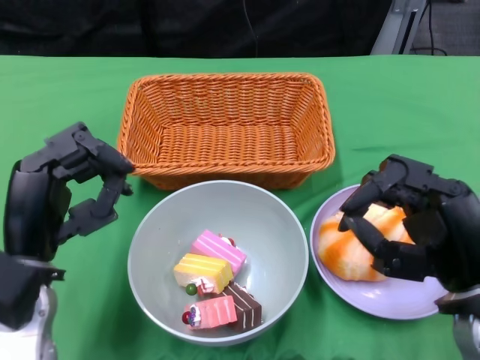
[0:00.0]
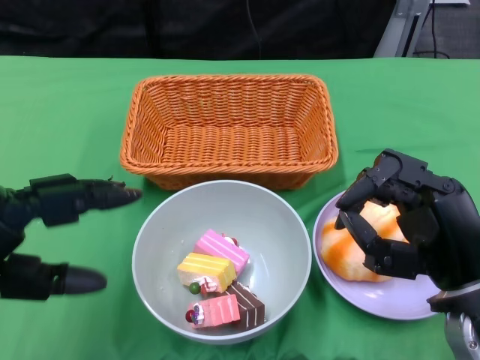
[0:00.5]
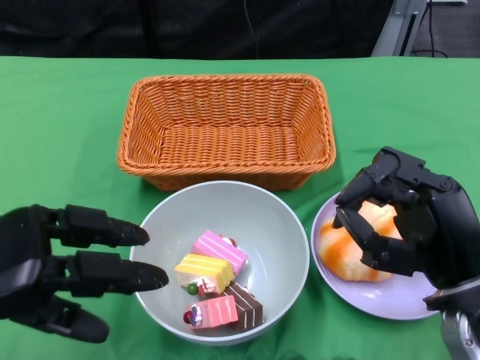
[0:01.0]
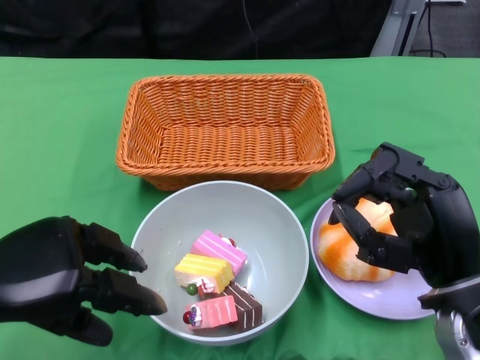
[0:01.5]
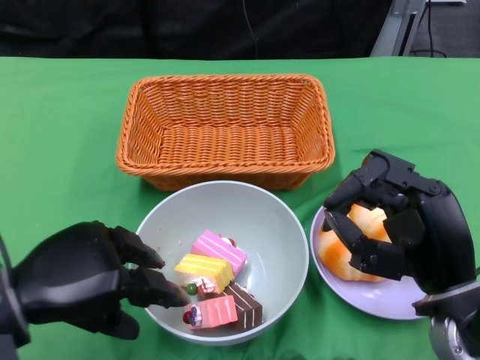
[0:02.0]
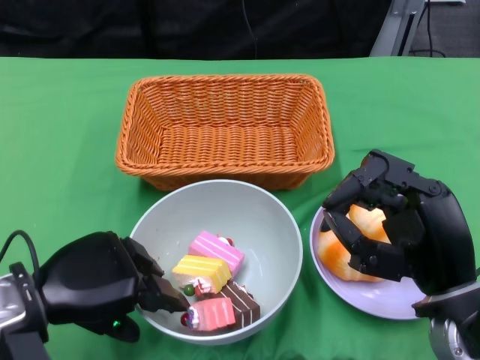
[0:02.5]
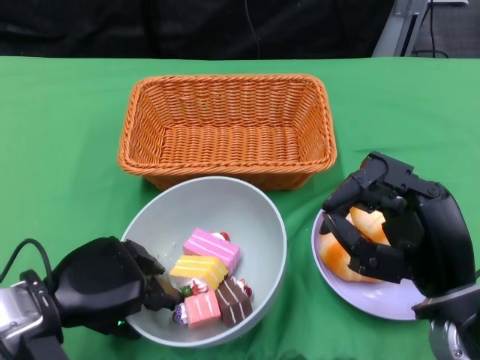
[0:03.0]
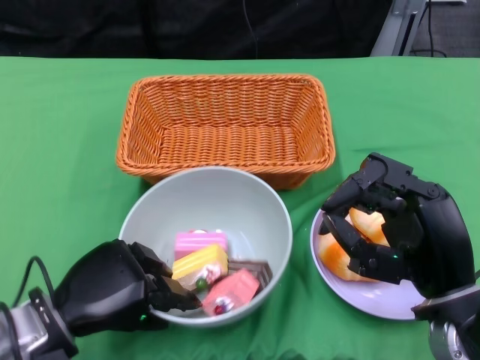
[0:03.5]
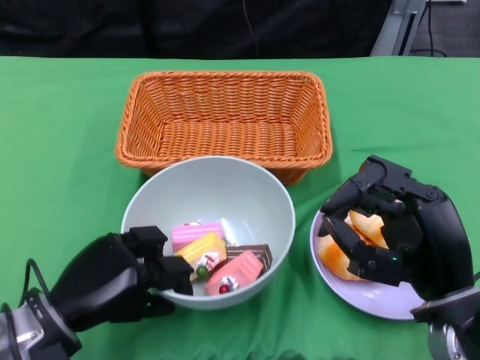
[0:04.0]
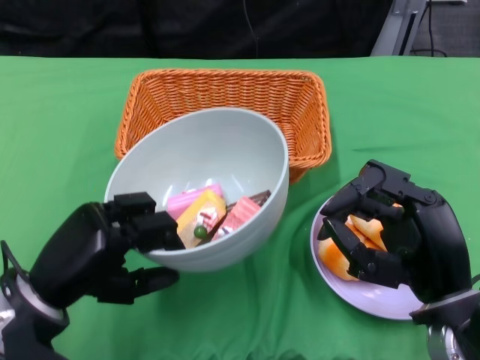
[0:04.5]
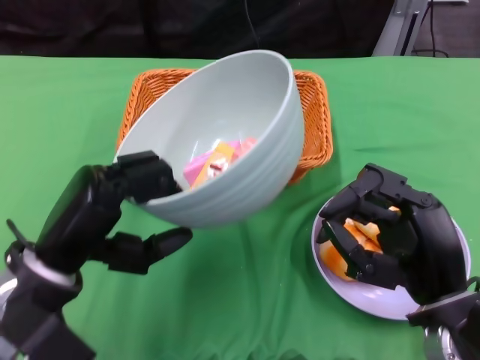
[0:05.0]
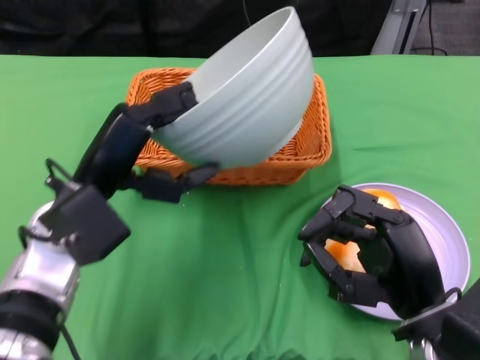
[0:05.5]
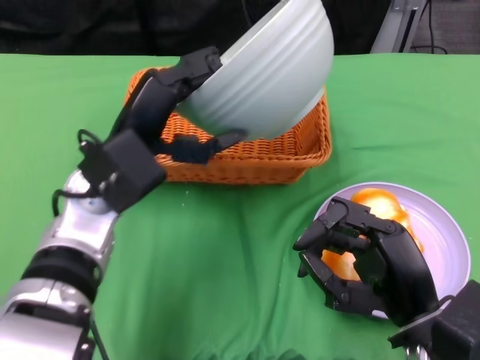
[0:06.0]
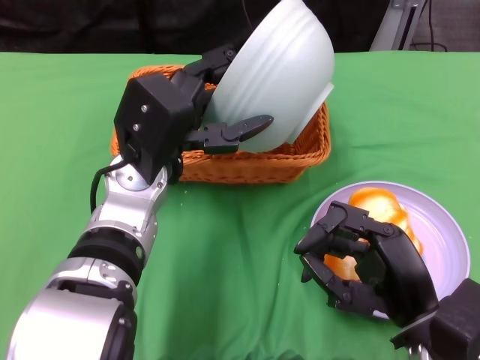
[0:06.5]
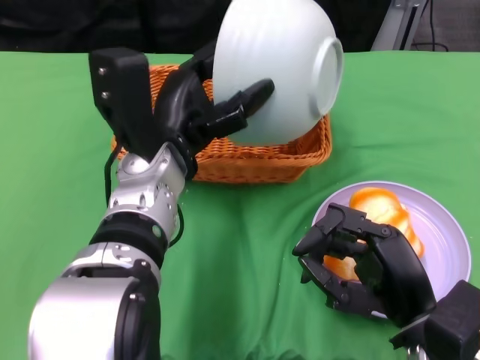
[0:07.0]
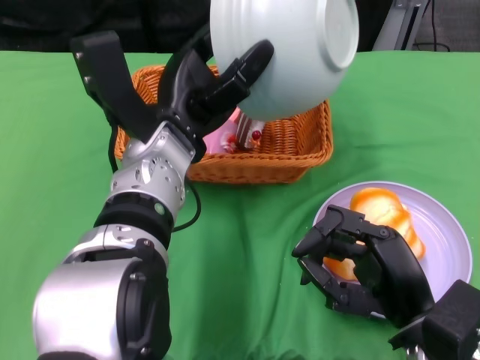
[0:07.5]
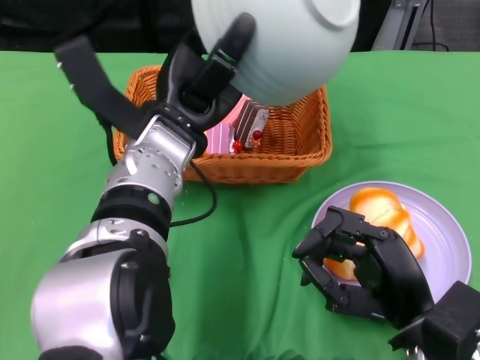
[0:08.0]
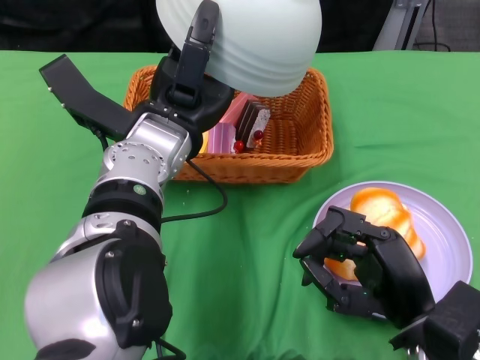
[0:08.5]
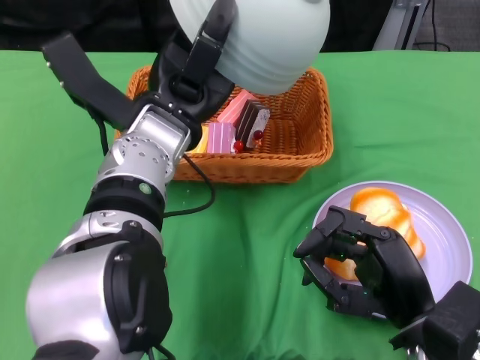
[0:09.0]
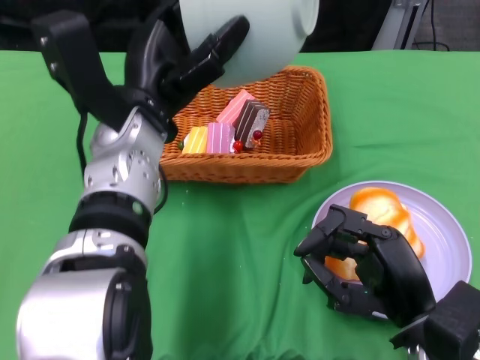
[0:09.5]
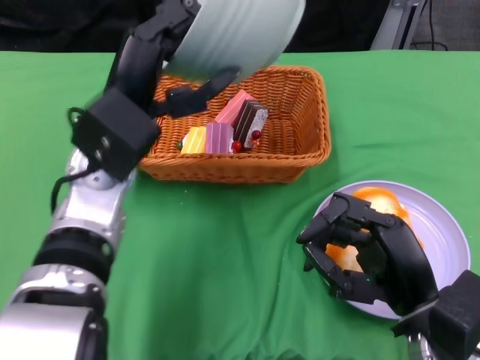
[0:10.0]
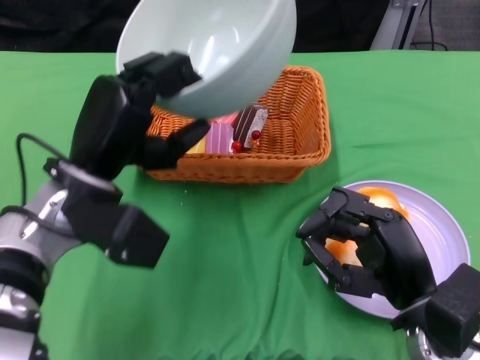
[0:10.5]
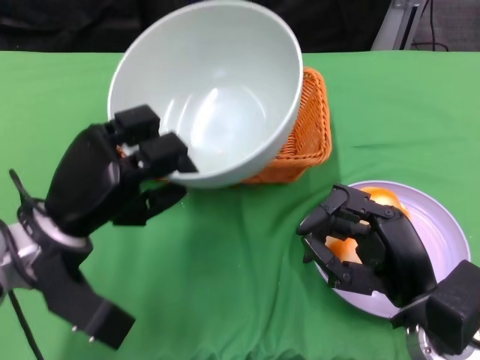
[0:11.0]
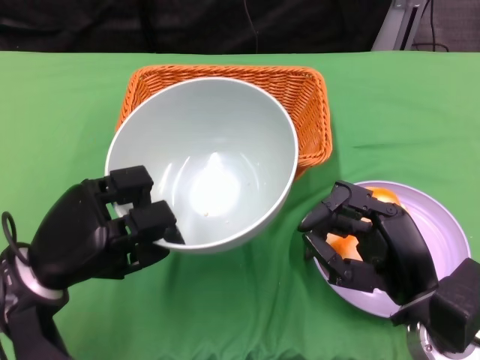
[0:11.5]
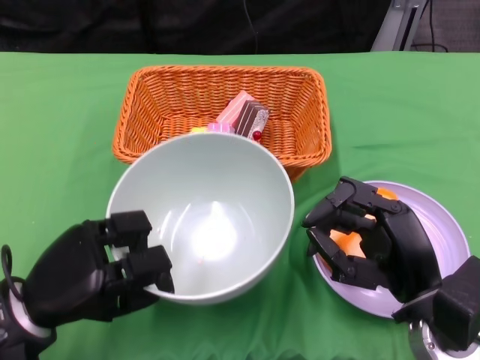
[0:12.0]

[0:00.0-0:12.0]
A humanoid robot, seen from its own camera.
Step, 0:00.0 to 0:03.5: Grasp the bowl with the left gripper.
Step, 0:04.0 to 0:07.5: Pour the cake into the basket with the left gripper.
0:02.0 to 0:04.0: The left hand goes about 10 cm downward.
0:04.0 to 0:06.0: The left hand goes roughly 15 cm upward, forward and to the right.
0:06.0 to 0:08.0: The left hand moves to the right, roughly 5 cm.
0:08.0 to 0:10.0: The left hand changes place by approximately 5 cm.
0:10.0 to 0:12.0: The left hand is displaced downward, to the left and backward by some 20 cm.

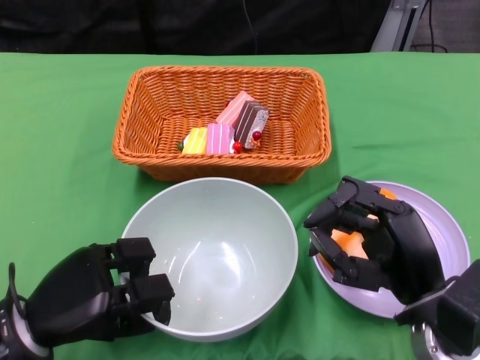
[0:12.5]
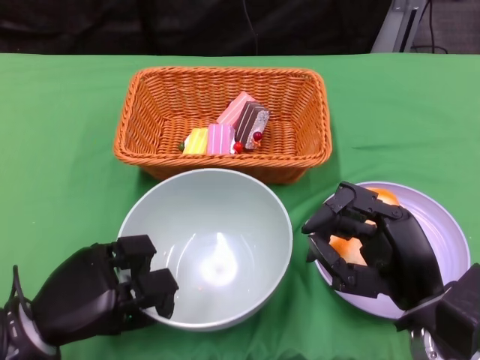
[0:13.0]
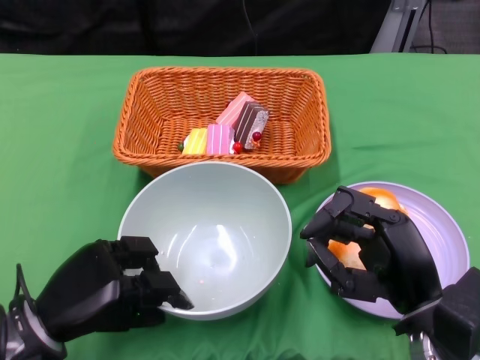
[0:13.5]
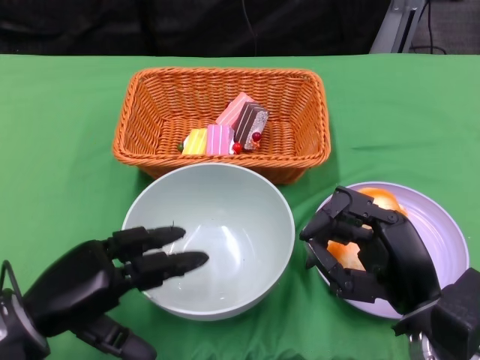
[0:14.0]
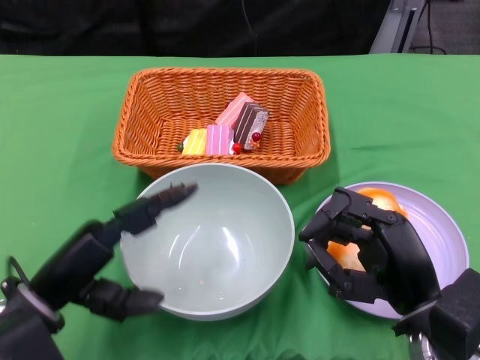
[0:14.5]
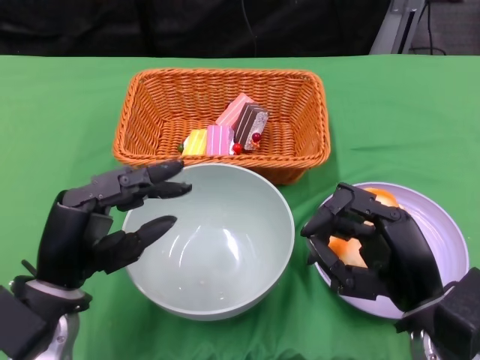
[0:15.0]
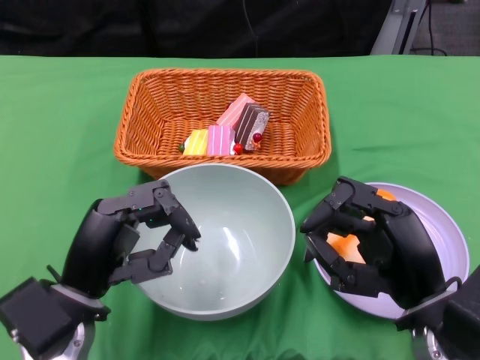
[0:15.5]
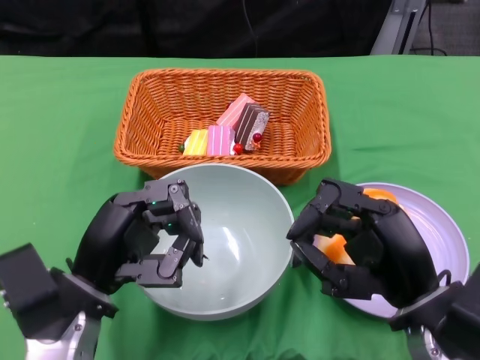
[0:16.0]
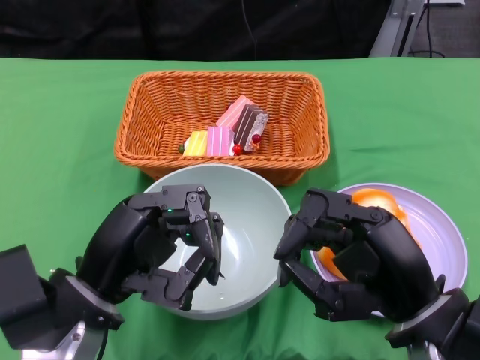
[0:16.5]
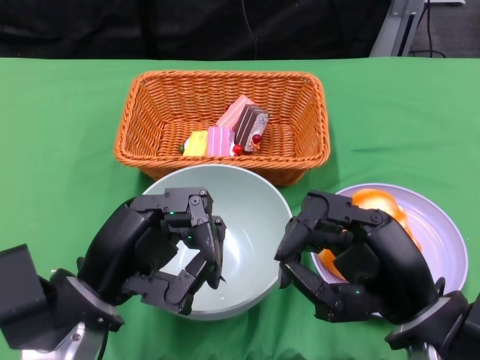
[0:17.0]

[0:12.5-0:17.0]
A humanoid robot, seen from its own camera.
0:14.5 to 0:17.0: The left hand shifts by roughly 5 cm.

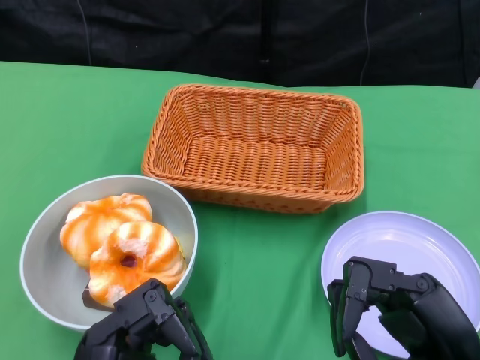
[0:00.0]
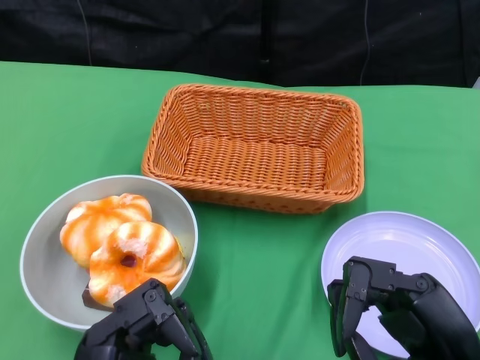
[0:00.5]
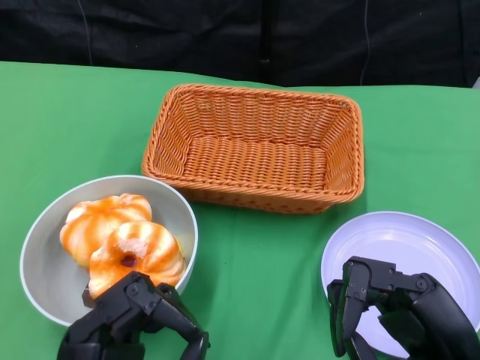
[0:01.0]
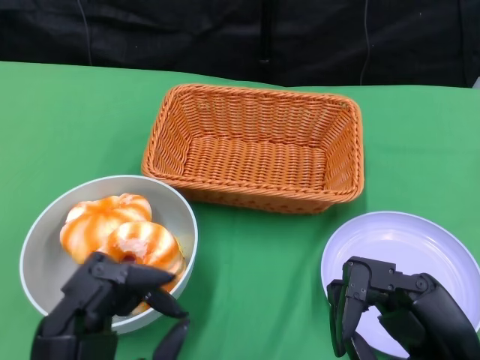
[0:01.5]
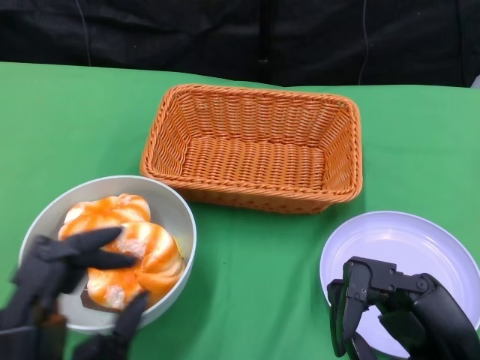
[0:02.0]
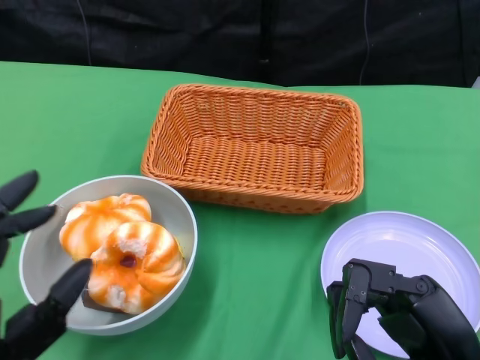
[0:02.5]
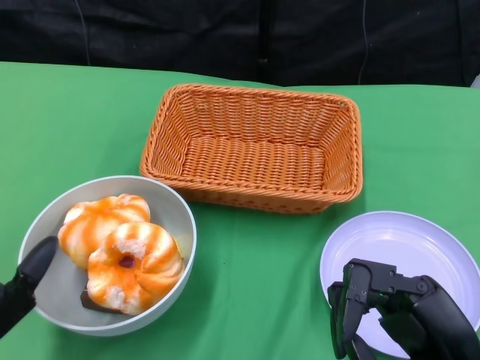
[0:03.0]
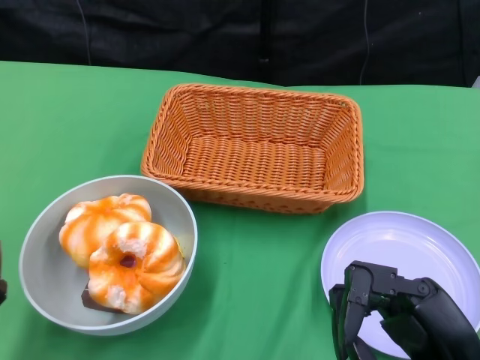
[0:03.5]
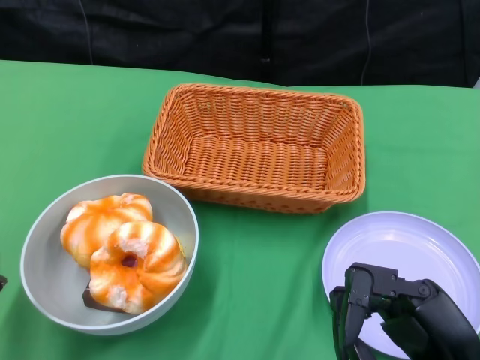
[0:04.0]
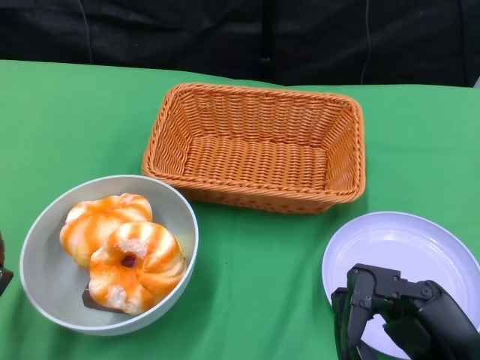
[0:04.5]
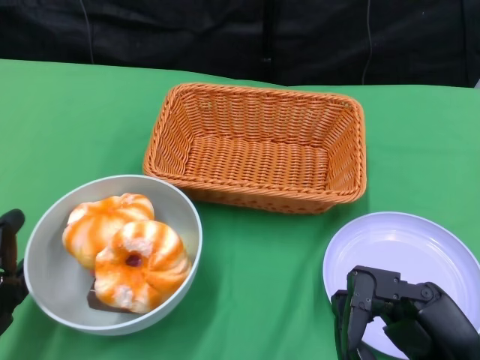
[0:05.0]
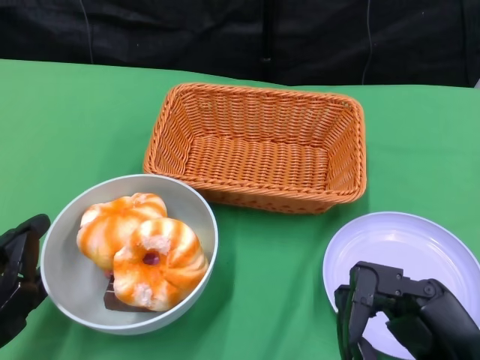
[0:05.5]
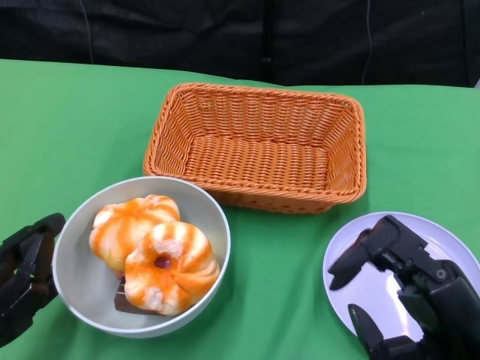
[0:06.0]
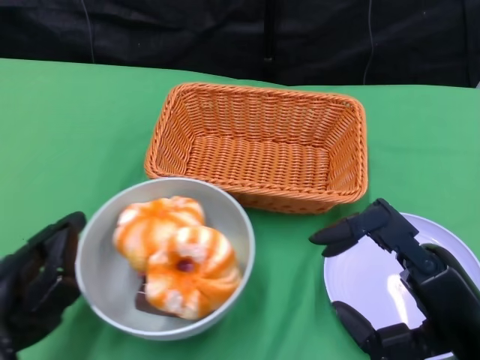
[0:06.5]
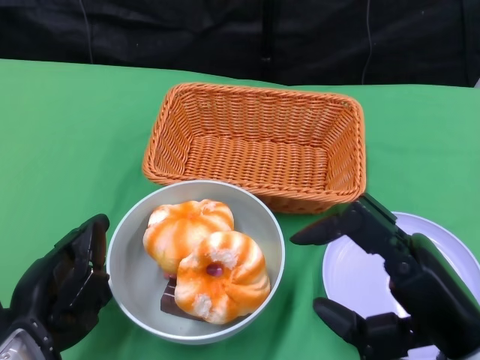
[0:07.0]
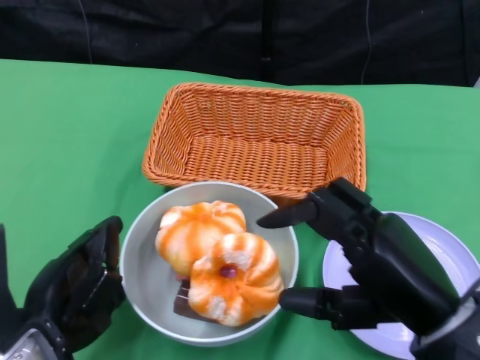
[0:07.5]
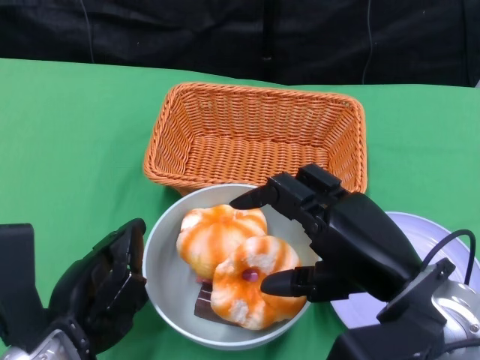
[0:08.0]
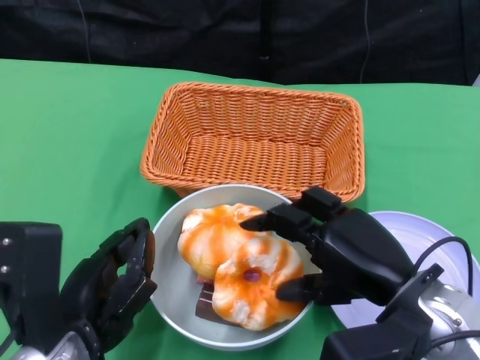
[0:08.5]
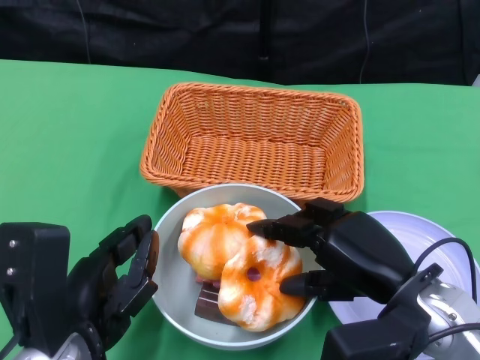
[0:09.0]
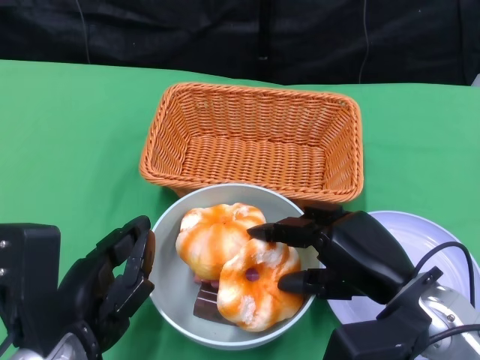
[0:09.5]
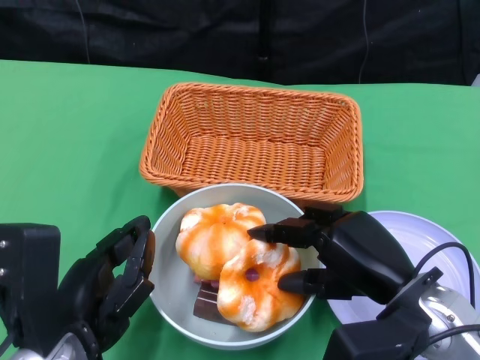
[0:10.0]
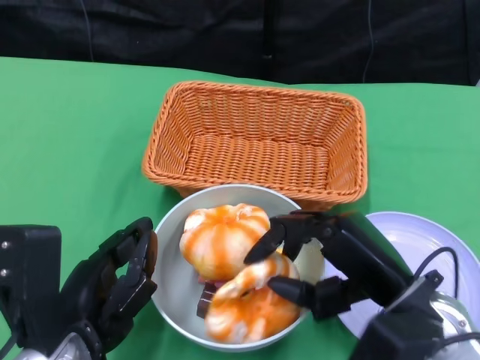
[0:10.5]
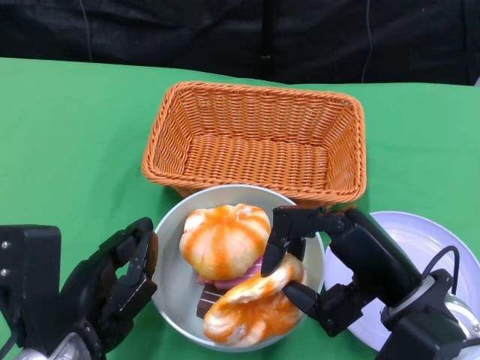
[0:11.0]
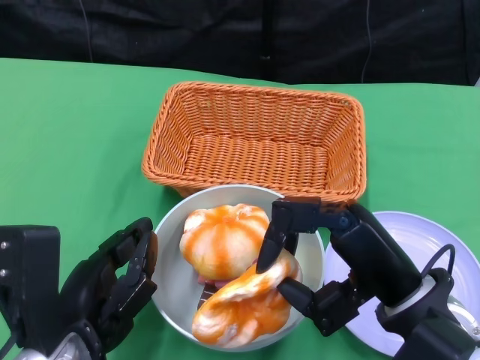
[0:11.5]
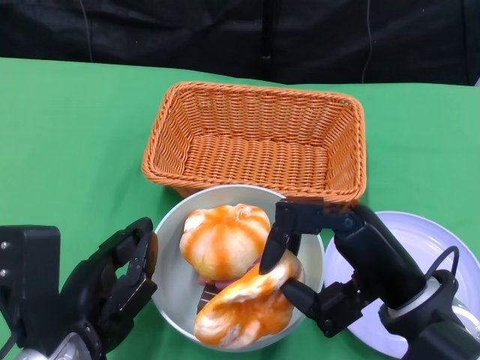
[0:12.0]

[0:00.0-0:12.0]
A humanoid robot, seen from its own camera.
Step, 0:00.0 to 0:08.0: Push the bowl to the center of the table using the left gripper.
0:02.0 to 0:04.0: The left hand goes some 10 cm to the left.
0:06.0 to 0:08.0: The right hand is displaced forward by about 5 cm; the left hand goes roughly 10 cm to the right.
0:08.0 to 0:10.0: The right hand travels downward by roughly 5 cm.
